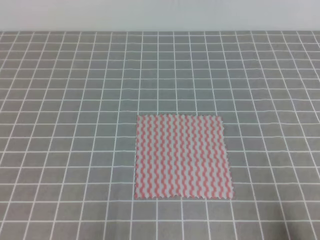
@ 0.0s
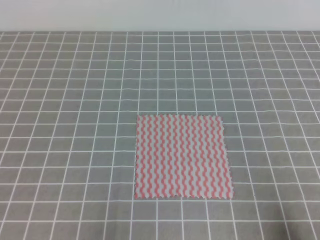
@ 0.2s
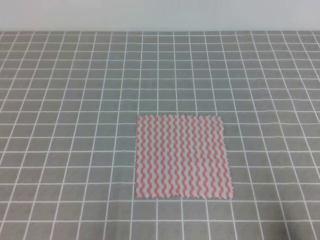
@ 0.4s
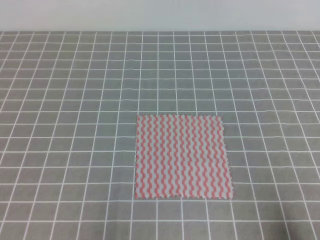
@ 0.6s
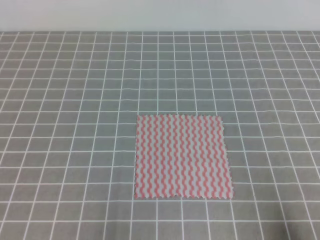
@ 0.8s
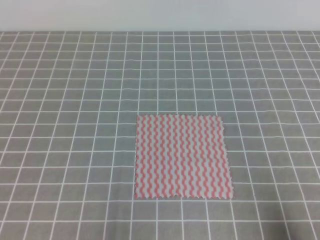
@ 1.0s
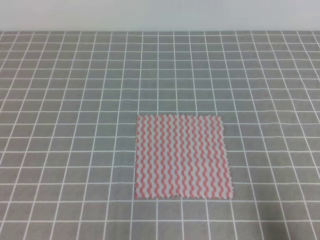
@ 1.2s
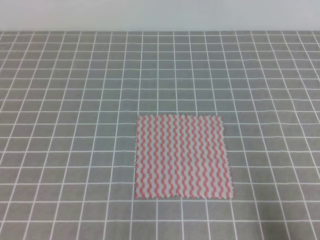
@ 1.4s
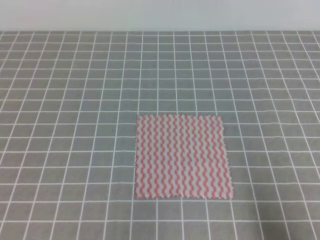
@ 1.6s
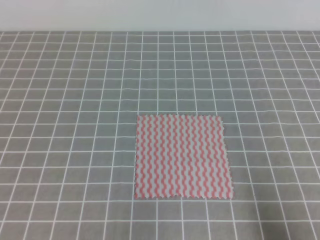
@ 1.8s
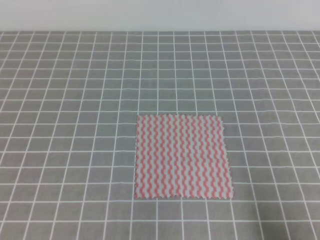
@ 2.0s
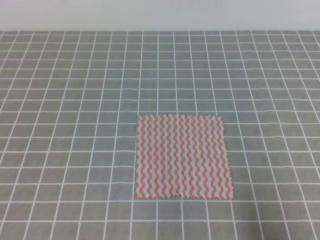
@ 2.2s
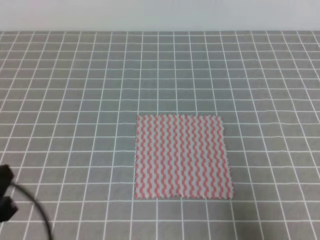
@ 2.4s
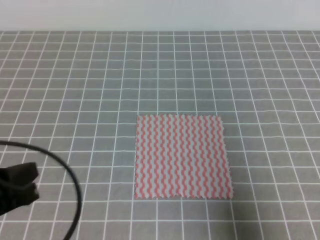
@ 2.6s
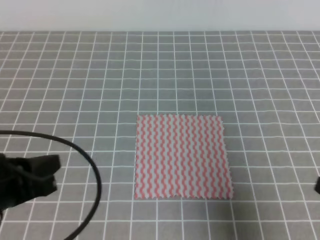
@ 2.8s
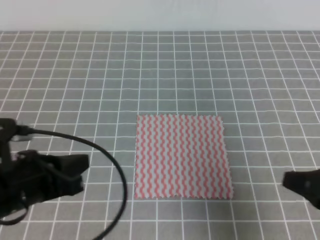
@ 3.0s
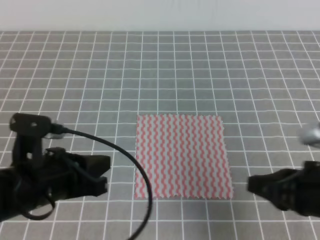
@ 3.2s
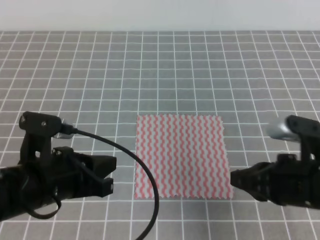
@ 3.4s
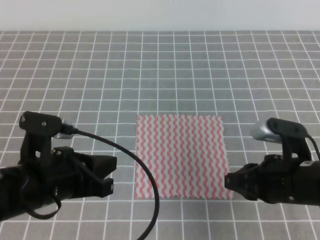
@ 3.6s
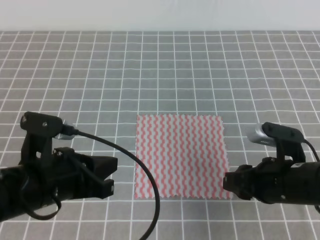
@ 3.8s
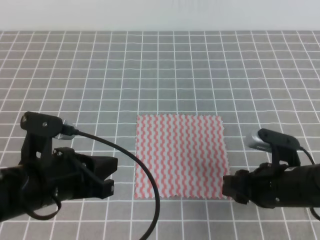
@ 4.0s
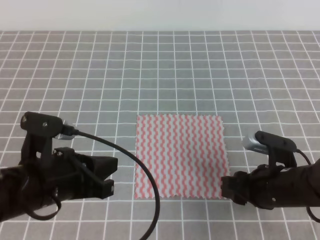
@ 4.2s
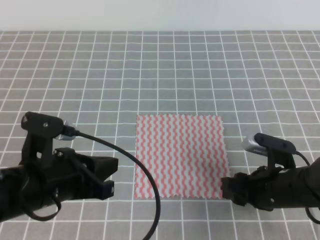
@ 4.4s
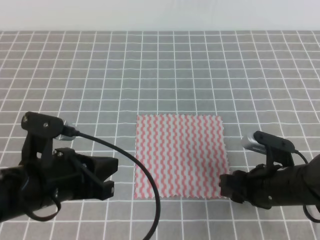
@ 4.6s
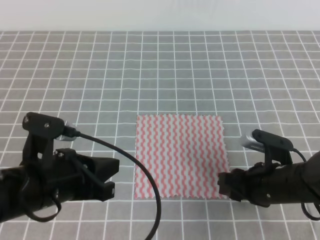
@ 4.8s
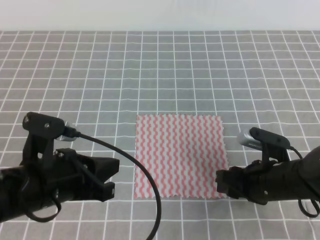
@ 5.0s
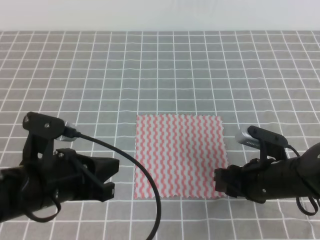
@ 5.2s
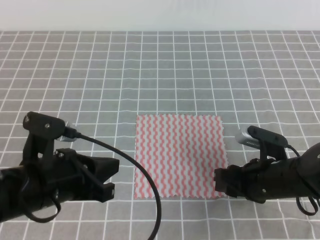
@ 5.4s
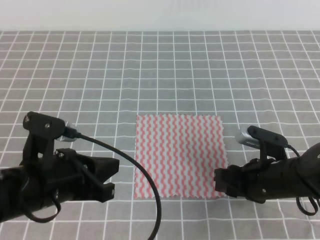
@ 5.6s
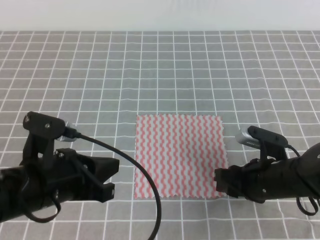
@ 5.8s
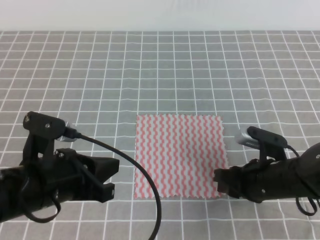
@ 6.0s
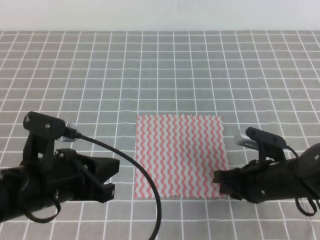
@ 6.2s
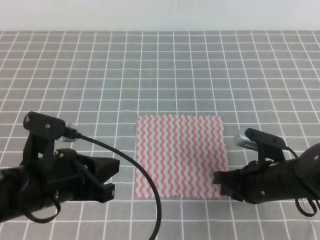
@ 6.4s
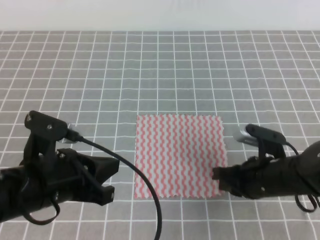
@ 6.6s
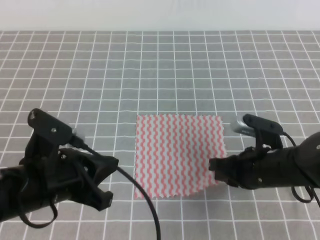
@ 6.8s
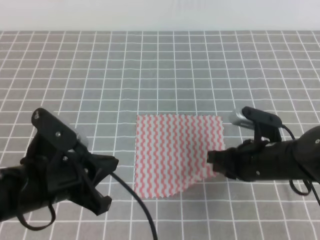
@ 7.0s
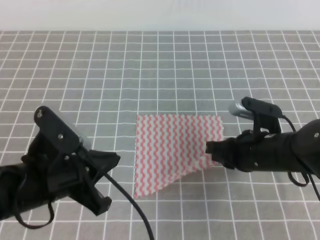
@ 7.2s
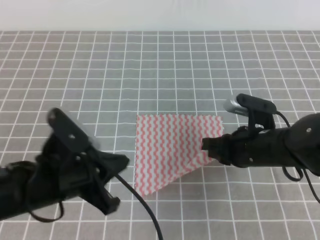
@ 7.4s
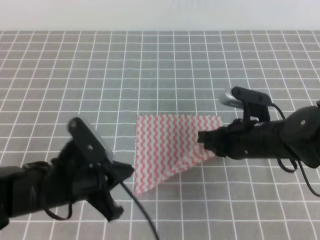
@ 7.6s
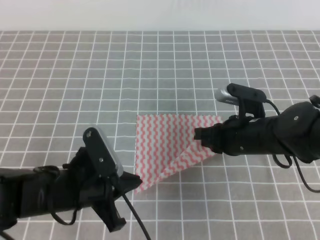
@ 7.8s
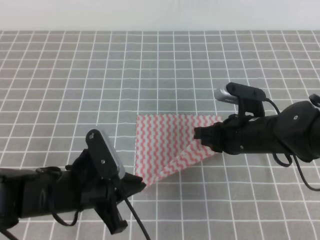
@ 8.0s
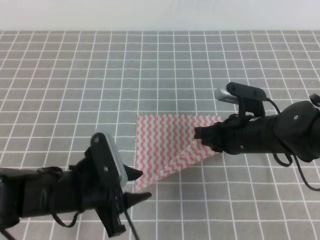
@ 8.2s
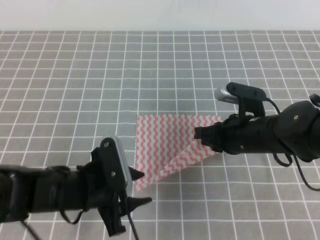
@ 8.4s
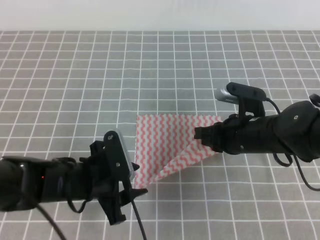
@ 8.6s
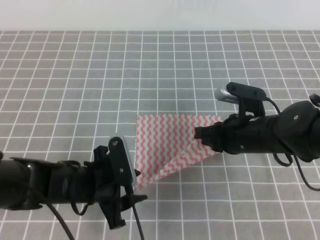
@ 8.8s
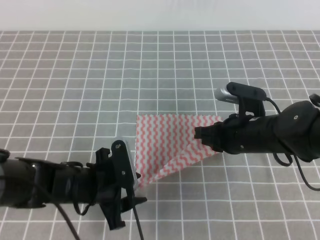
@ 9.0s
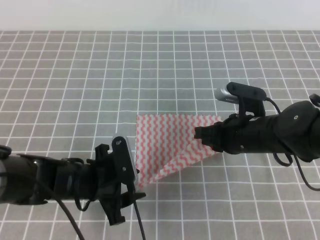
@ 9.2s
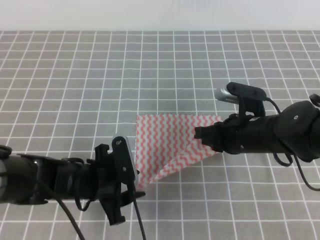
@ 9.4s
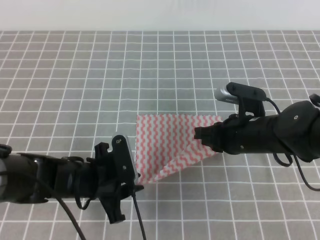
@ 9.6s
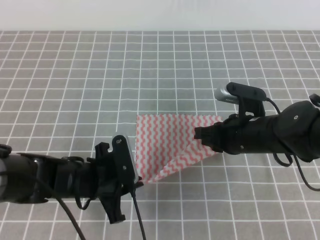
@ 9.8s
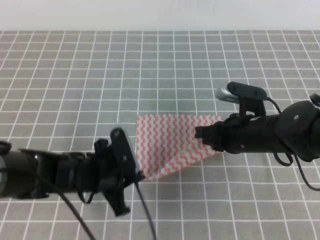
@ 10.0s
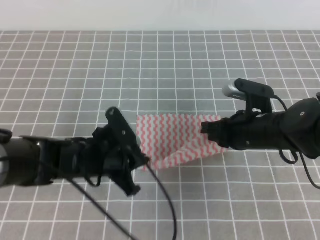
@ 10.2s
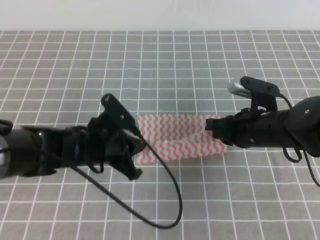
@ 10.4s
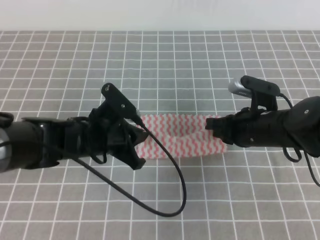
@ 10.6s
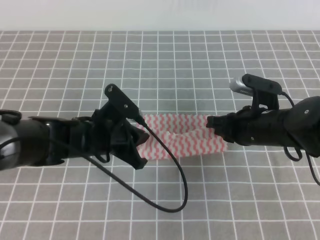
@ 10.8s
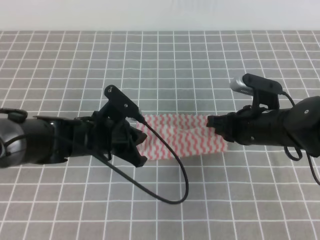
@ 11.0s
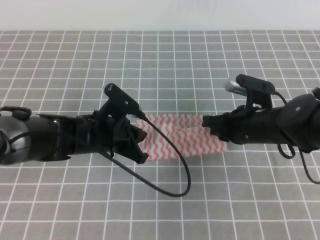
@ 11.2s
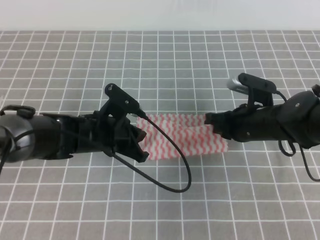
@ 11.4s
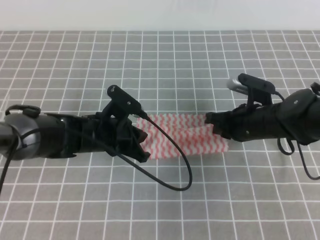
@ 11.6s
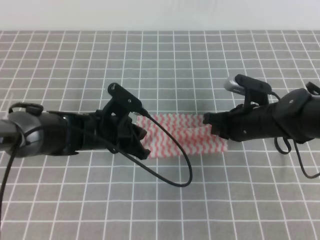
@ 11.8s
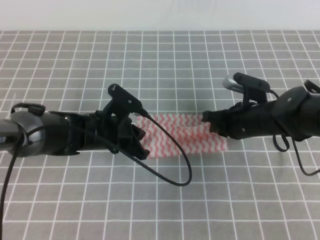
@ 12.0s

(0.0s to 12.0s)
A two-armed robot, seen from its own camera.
1.6s - 3.0s: The left gripper shifts some 15 cm forward, to the right and upward; the right gripper shifts about 10 cm forward and to the left.
3.0s - 4.4s: The right gripper heads downward, forward and to the left, covering some 15 cm, and opens up.
4.4s - 6.0s: The right gripper closes.
6.0s - 7.6s: The right gripper ends up roughly 5 cm from where it was, and closes.
7.6s - 9.0s: The left gripper goes approximately 5 cm downward, and opens its fingers.
9.0s - 10.4s: The left gripper ends up roughly 5 cm from where it was, and closes.
10.4s - 12.0s: The right gripper ends up about 5 cm from where it was; the left gripper shifts about 5 cm forward.

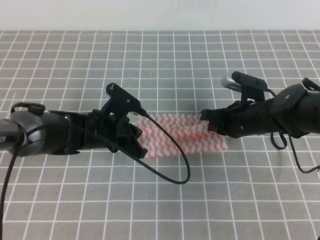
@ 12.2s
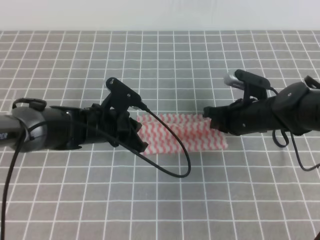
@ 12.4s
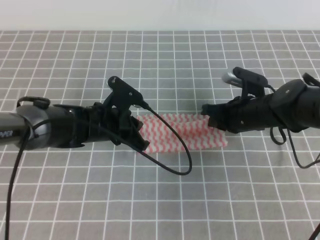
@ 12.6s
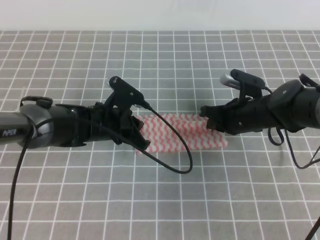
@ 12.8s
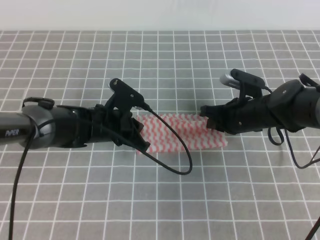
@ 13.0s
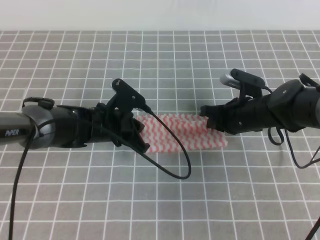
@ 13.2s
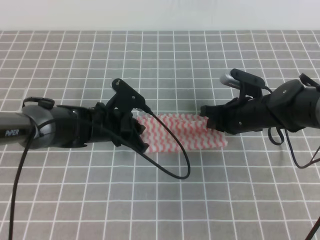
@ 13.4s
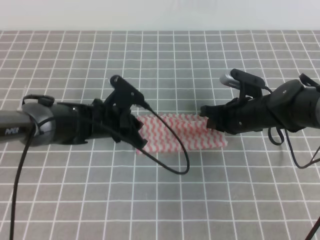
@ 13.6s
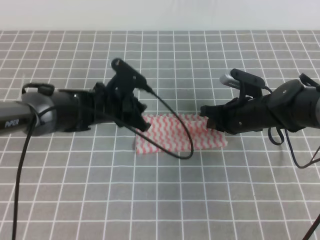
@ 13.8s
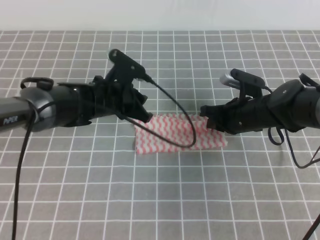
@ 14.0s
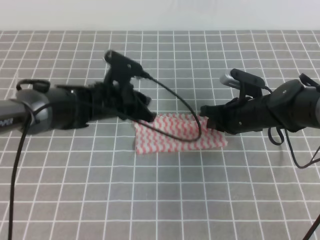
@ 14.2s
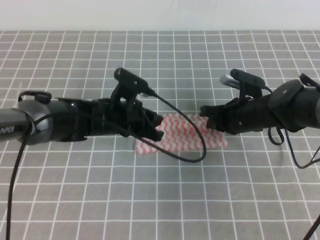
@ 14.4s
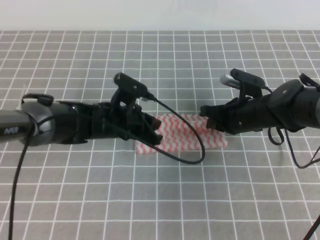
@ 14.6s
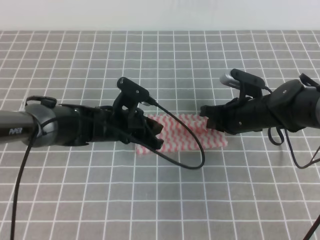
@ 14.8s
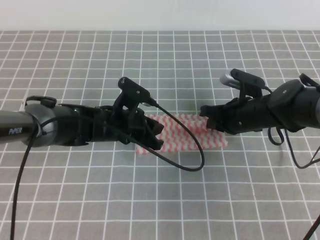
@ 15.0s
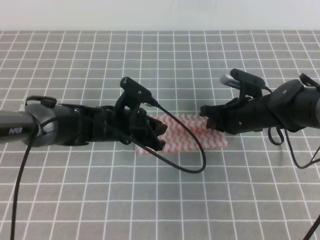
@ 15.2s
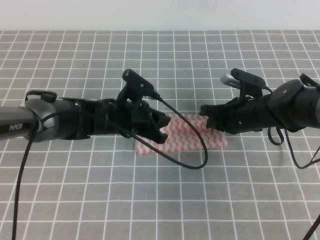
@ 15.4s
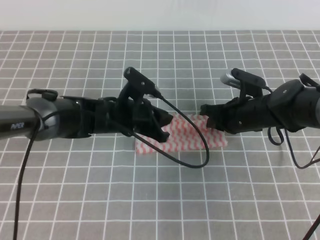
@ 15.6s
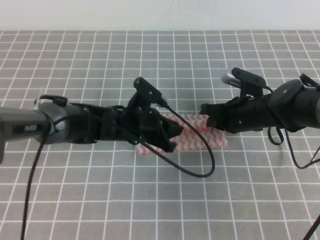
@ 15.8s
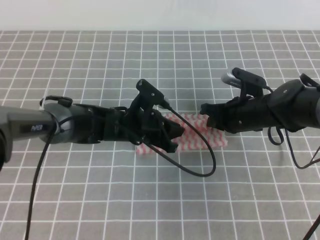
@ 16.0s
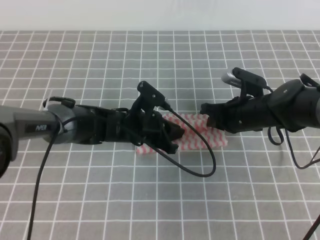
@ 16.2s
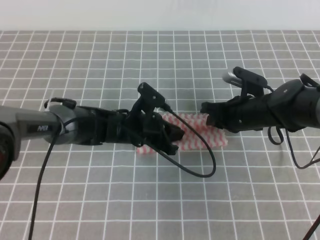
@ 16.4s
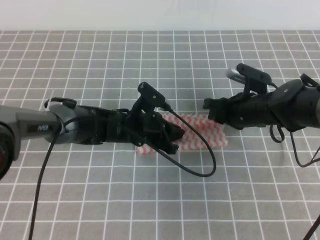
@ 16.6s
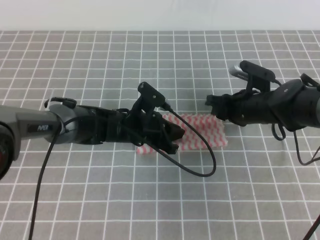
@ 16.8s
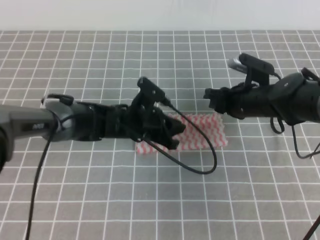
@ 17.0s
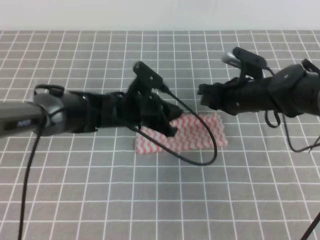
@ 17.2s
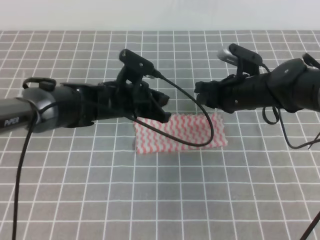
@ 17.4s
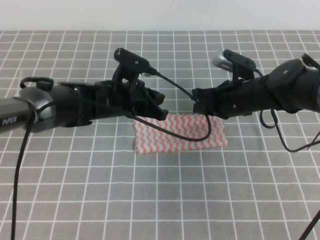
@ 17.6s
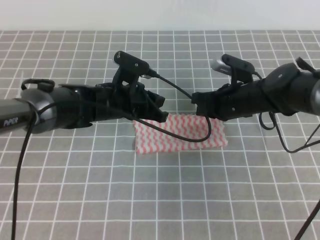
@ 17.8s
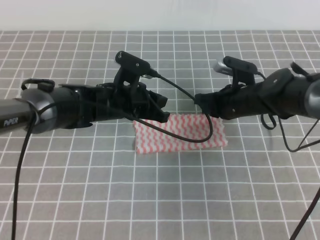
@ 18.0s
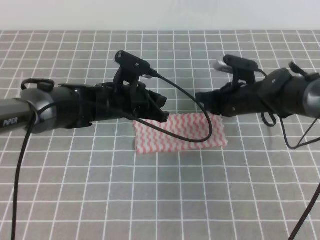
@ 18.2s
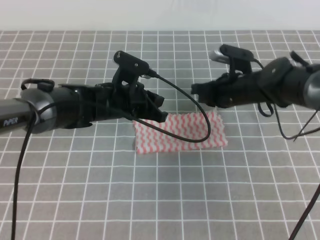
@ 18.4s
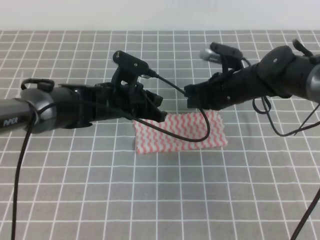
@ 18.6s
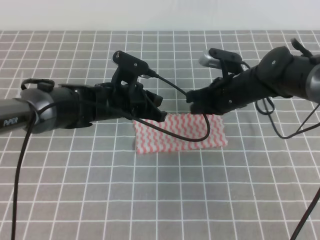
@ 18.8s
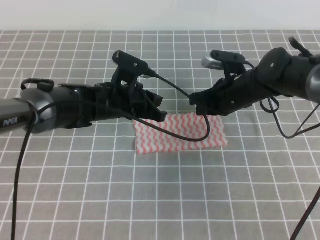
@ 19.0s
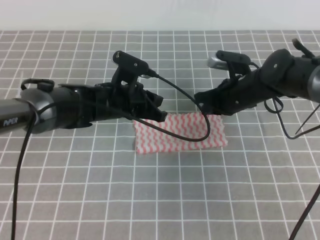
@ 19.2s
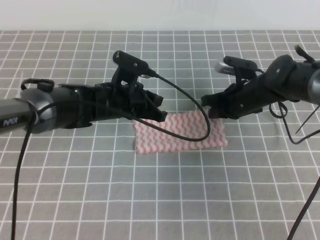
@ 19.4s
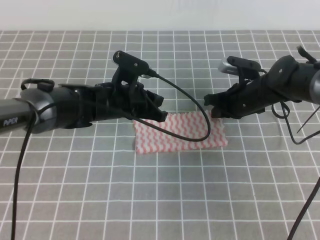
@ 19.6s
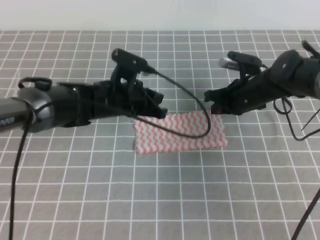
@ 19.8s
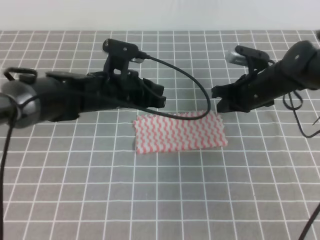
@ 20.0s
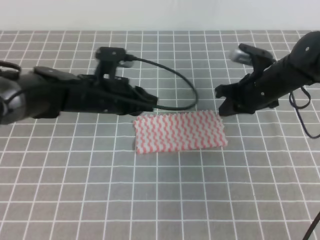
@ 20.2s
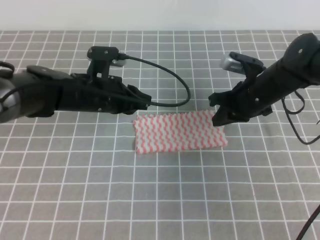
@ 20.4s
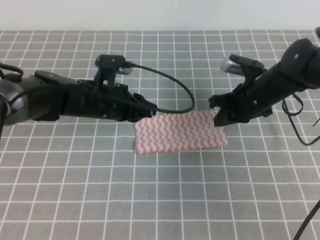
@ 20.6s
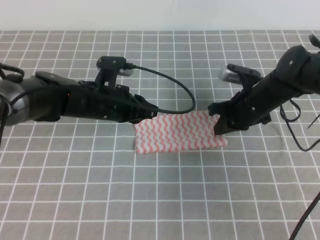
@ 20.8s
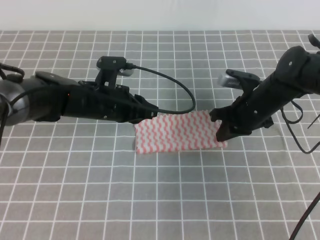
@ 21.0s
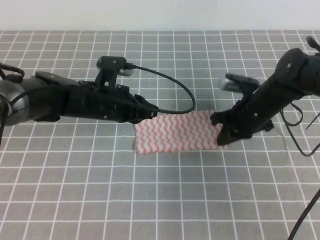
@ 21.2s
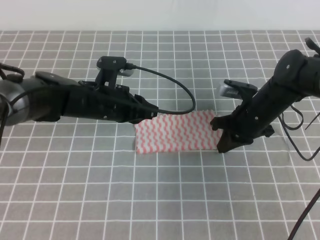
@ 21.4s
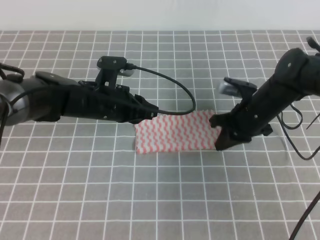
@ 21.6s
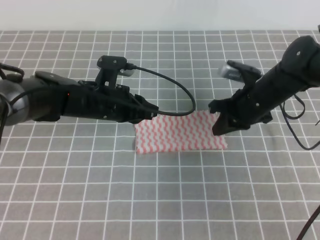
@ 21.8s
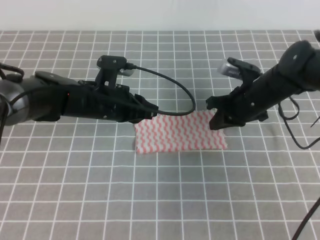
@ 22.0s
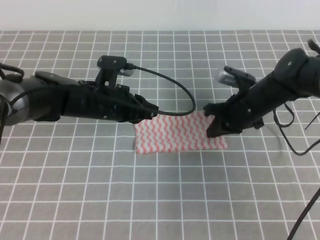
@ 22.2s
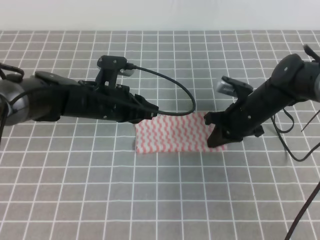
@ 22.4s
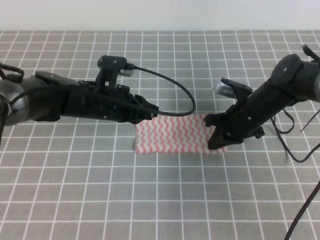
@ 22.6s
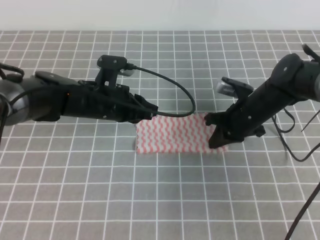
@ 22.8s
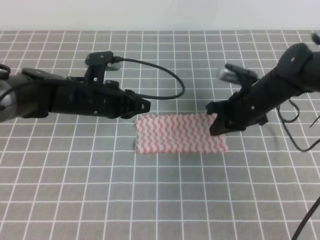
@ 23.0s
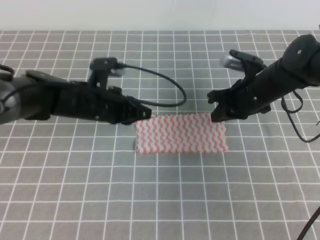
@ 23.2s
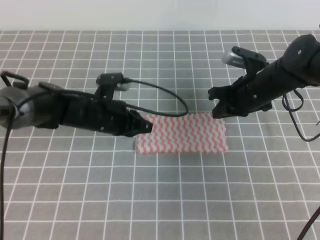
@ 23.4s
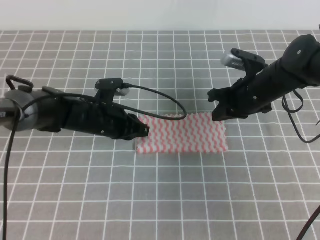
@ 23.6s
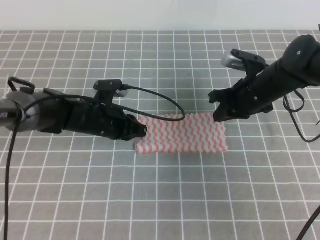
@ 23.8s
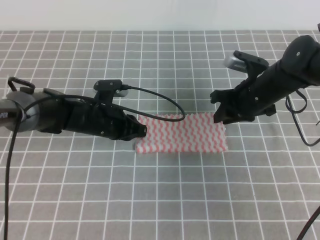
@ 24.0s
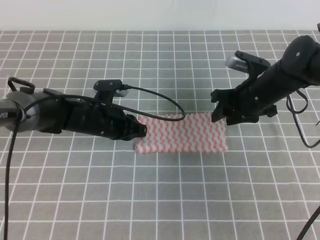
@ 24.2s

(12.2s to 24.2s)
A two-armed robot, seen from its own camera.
12.2s - 13.8s: The left gripper opens its fingers.
13.8s - 15.2s: The grippers stay close to where they were, moving slightly.
15.2s - 16.6s: The right gripper opens.
16.6s - 18.2s: The left gripper goes roughly 5 cm upward; the right gripper closes.
18.2s - 19.8s: The grippers move only a little.
21.2s - 22.6s: There are only small adjustments of the grippers.
22.6s - 24.2s: The left gripper is displaced downward by about 5 cm. Meanwhile the right gripper opens.
